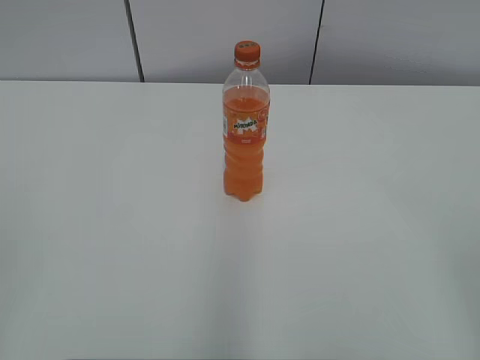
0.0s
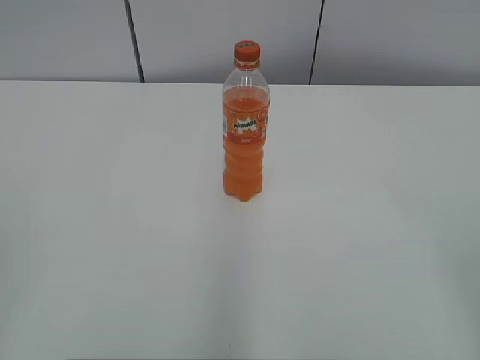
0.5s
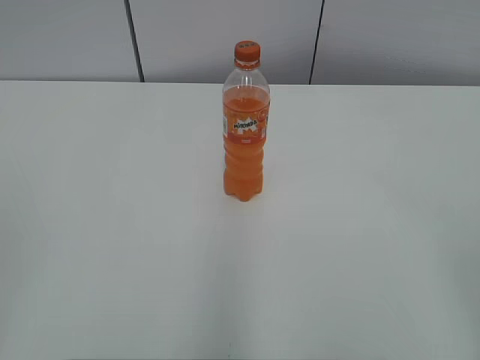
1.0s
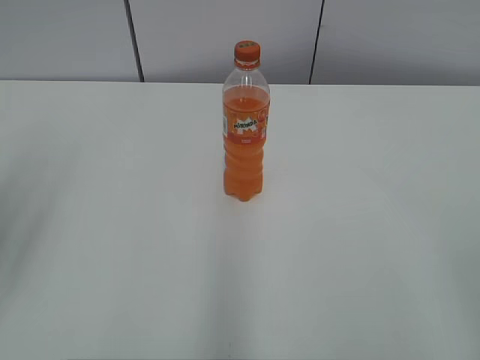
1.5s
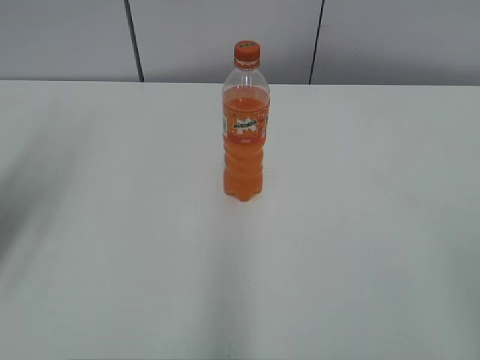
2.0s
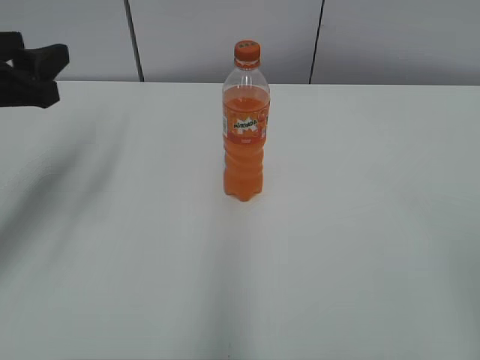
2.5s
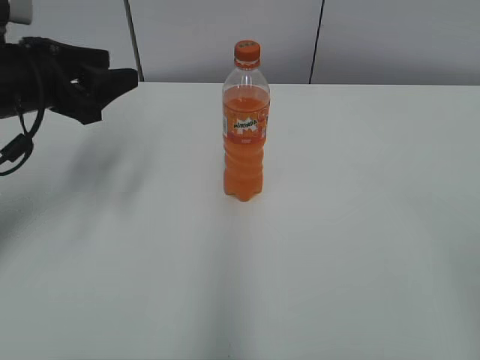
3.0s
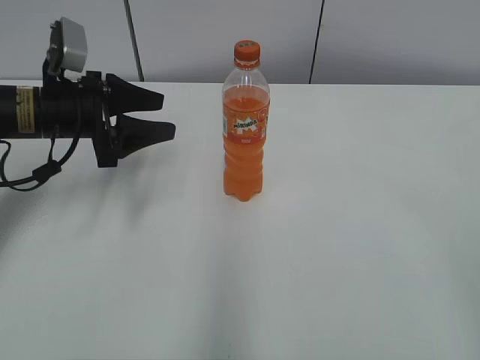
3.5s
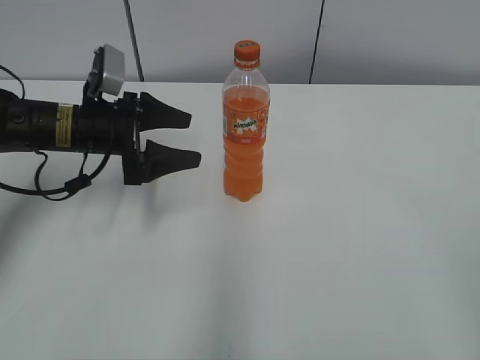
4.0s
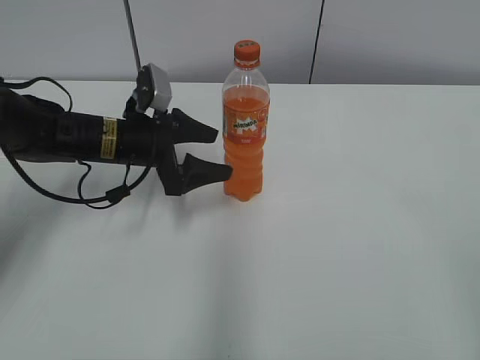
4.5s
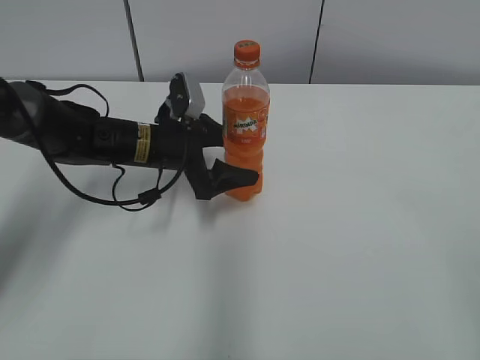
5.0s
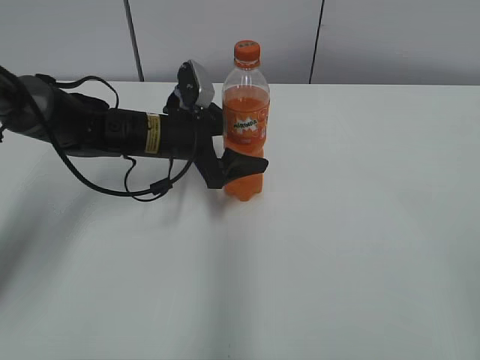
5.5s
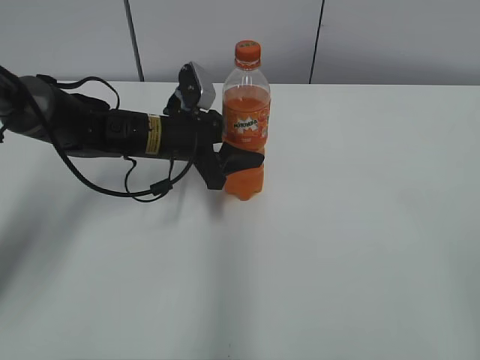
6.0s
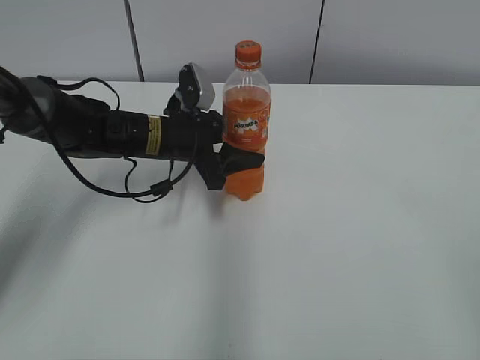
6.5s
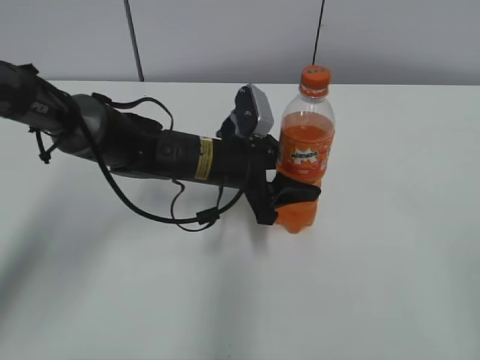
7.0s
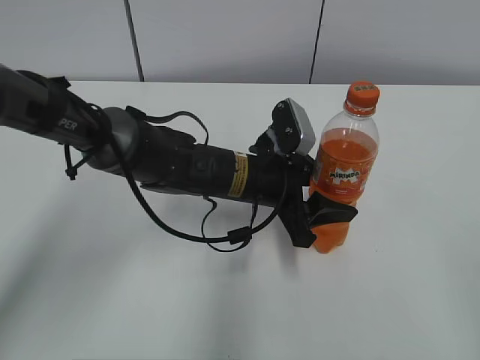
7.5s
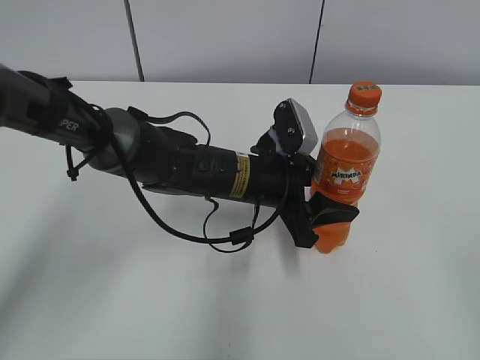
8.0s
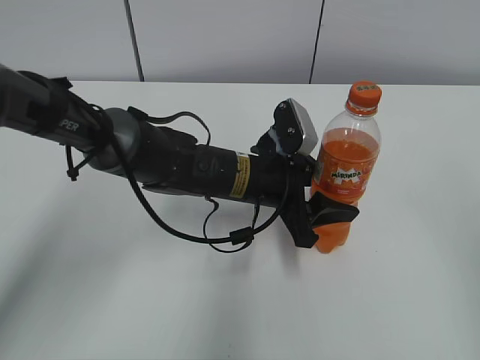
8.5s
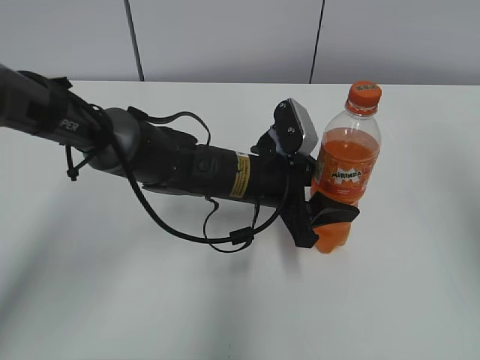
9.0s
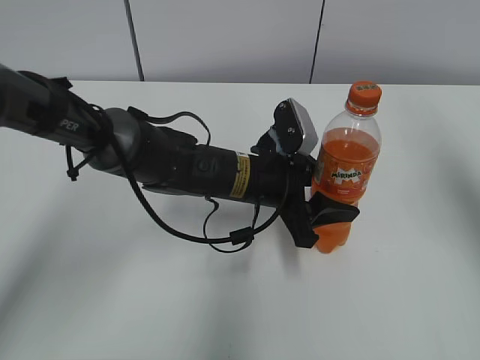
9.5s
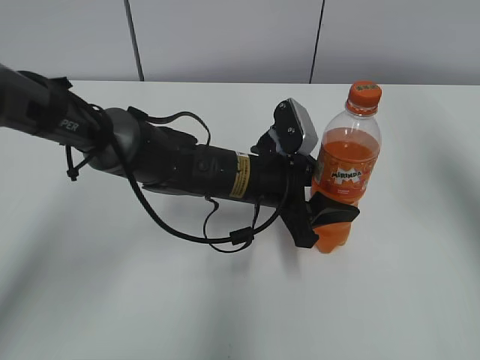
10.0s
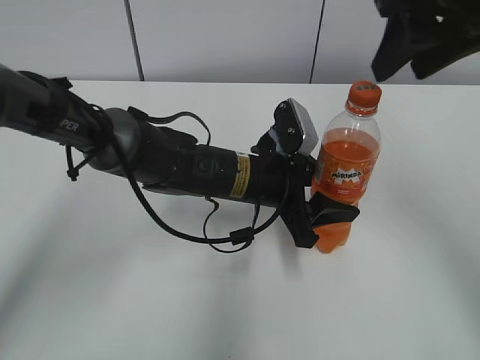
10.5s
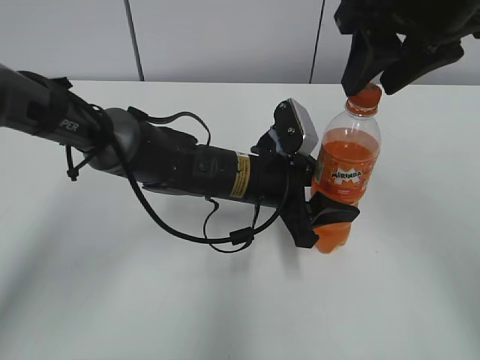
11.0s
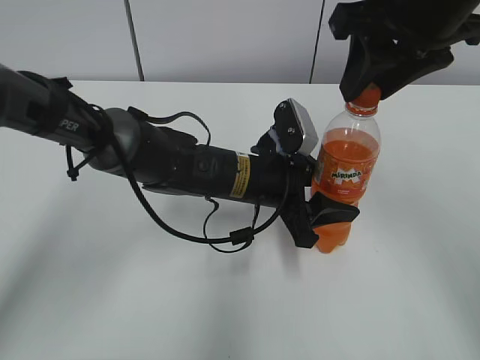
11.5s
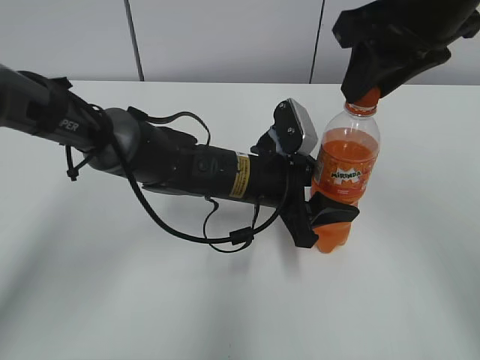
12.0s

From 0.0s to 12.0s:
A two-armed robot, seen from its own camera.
Step, from 0.0s to 6.0s: Grab the Mirinda with the left hand.
Step, from 6.5s to 7.0s: Move the Mirinda from left to right.
From 2.0s to 4.0s: The left gripper heads forward, downward and to the right, covering approximately 25 cm, and opens its fingers.
From 4.0s to 6.0s: The left gripper moves to the right, roughly 10 cm, and closes its fingers.
From 6.0s to 8.0s: The left gripper moves to the right and backward, about 15 cm.
From 8.0s to 10.0s: The right gripper travels forward by roughly 30 cm.
From 10.0s to 12.0s: The right gripper travels to the left by some 15 cm.

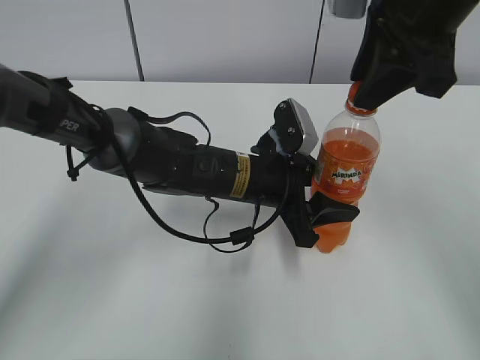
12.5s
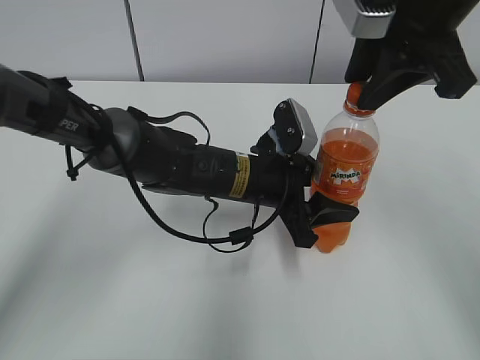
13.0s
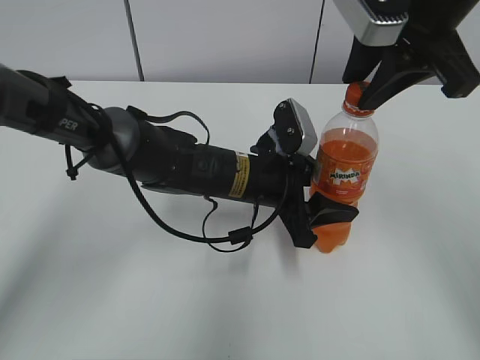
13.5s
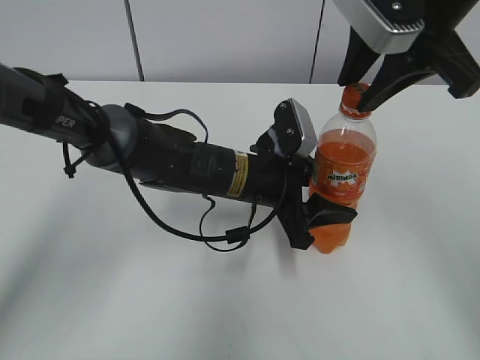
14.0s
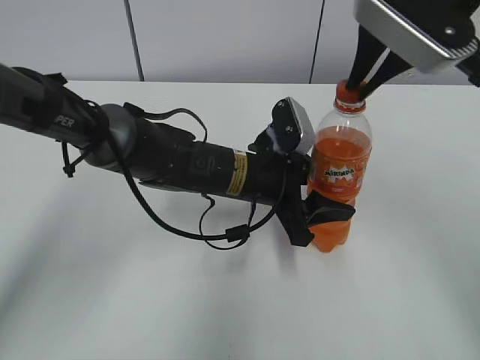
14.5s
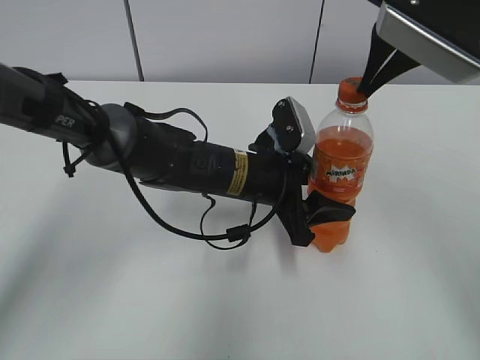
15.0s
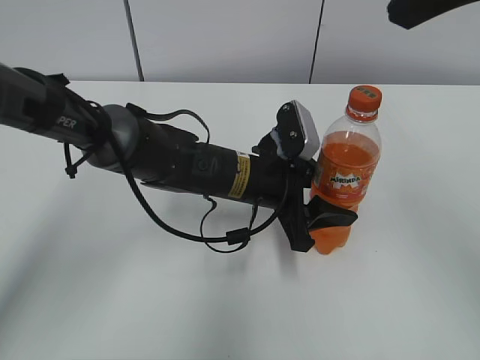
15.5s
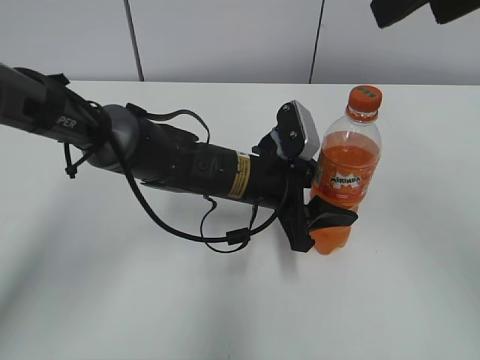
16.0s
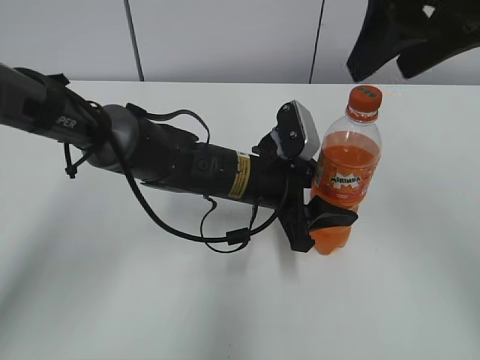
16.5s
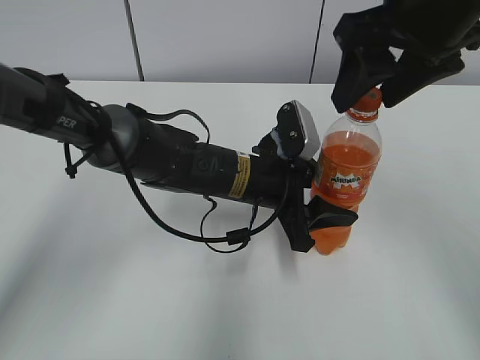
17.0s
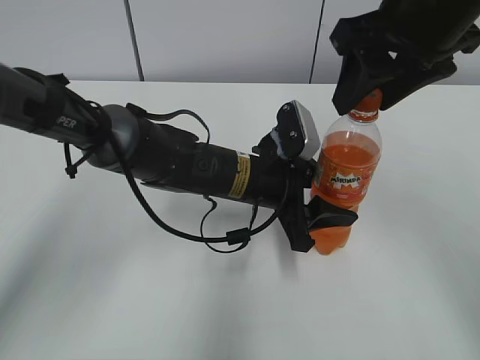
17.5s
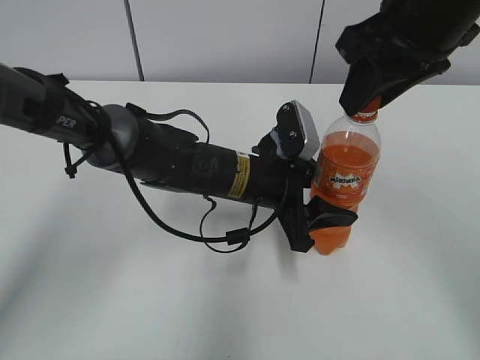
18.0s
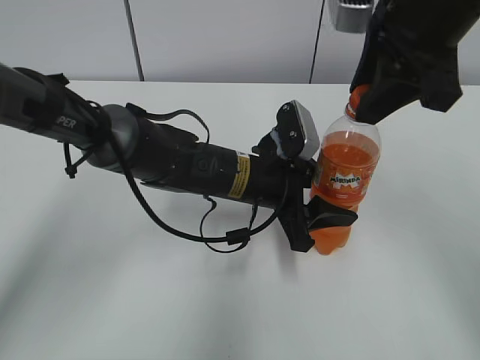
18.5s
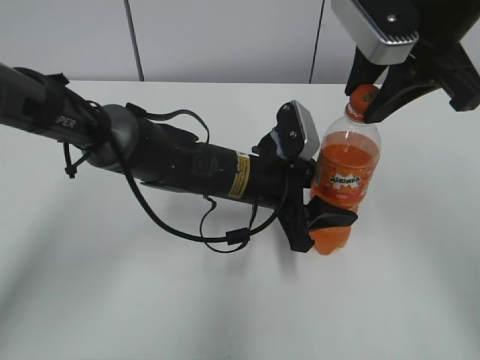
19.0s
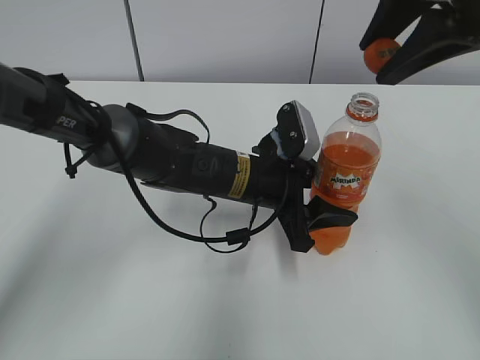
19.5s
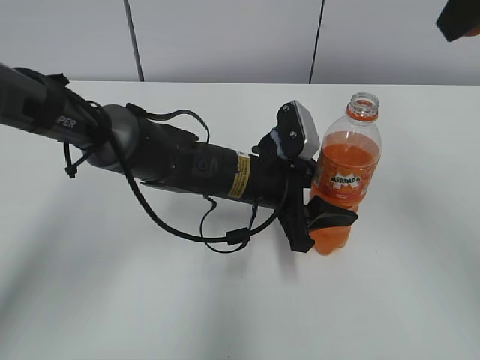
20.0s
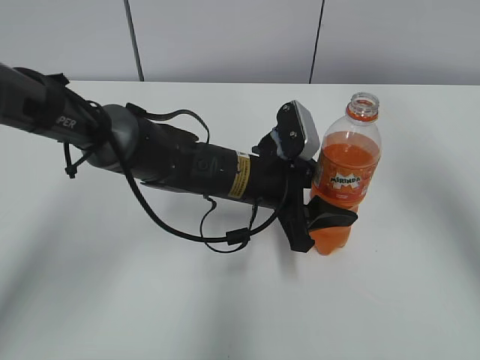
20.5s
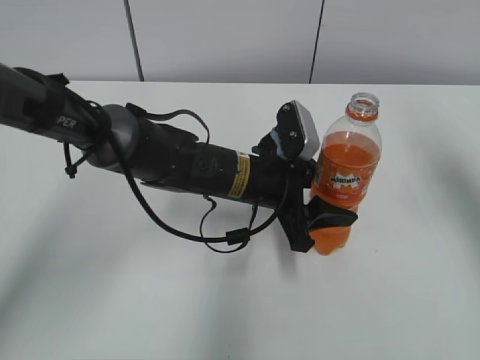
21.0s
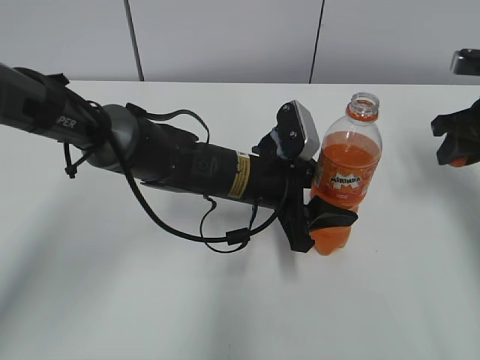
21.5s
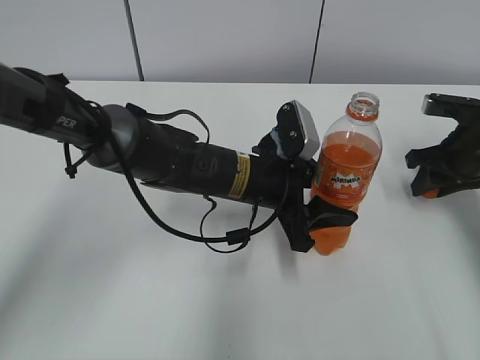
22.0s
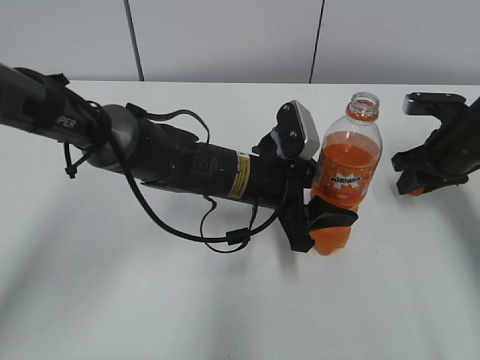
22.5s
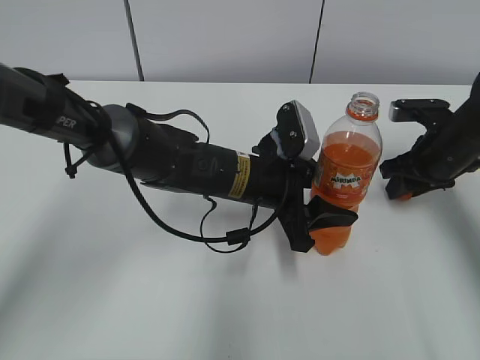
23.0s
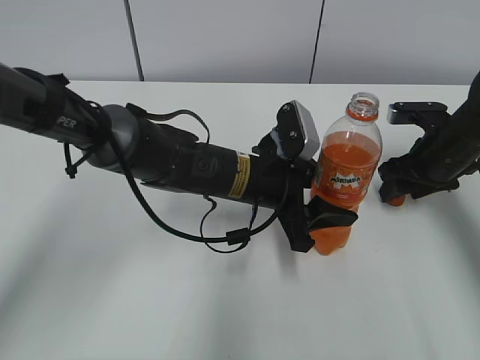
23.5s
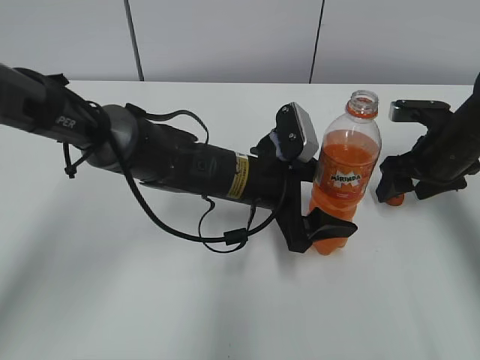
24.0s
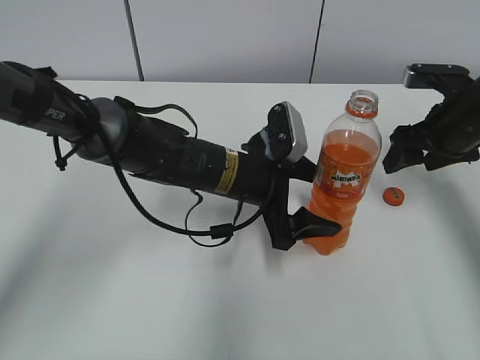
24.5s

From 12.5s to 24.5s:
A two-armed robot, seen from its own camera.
Step, from 19.5s to 23.5s: Place the bottle cap on the right.
From 14.5s to 16.5s: The right gripper opens.
From 16.5s to 18.5s: The right gripper ends up roughly 5 cm from where it was, and closes up.
From 18.5s to 20.5s: The right gripper heads to the right and upward, covering about 10 cm.
From 20.5s to 22.5s: The right gripper shifts approximately 25 cm downward.
From 22.5s to 24.5s: The left gripper opens up. Meanwhile the right gripper opens its fingers.

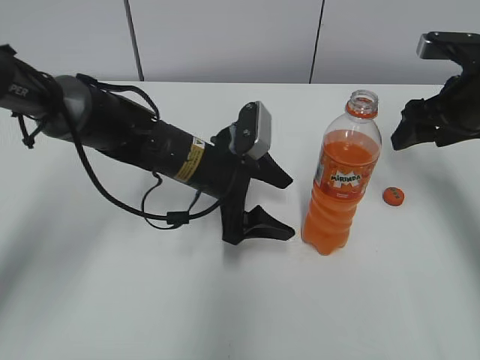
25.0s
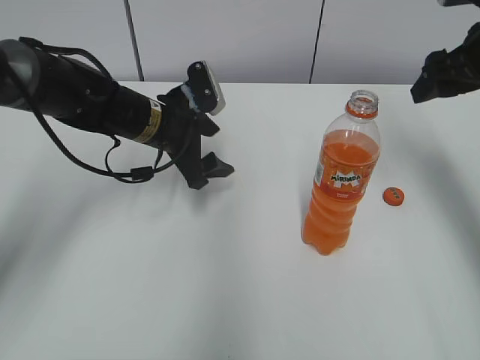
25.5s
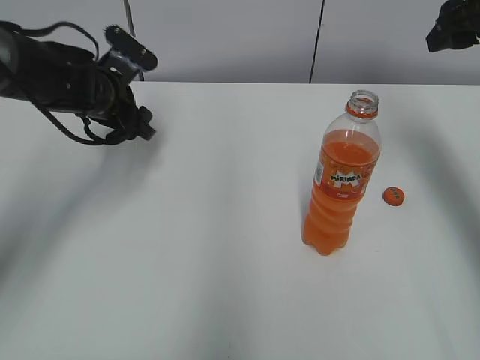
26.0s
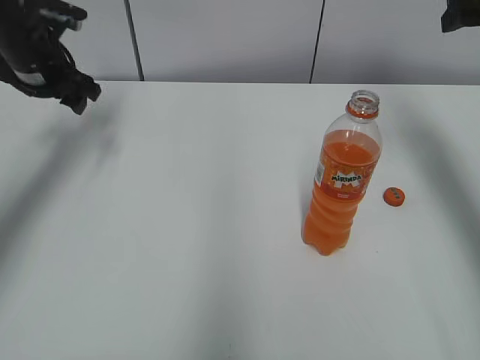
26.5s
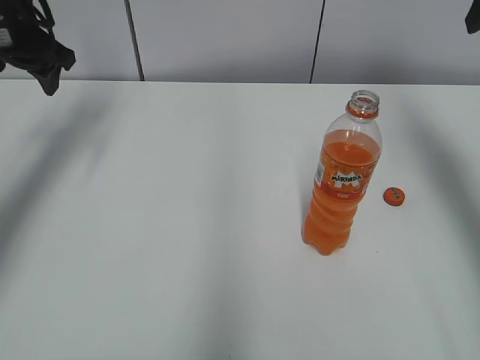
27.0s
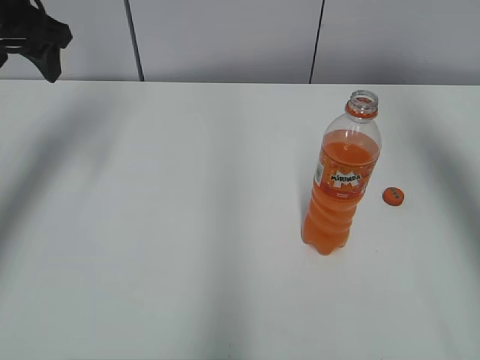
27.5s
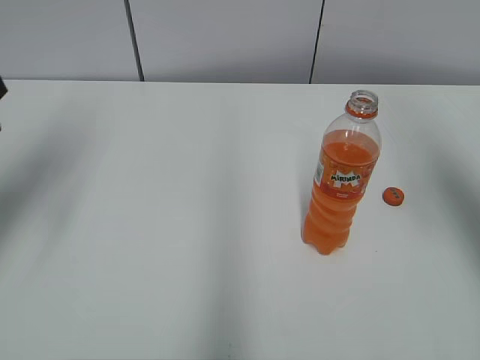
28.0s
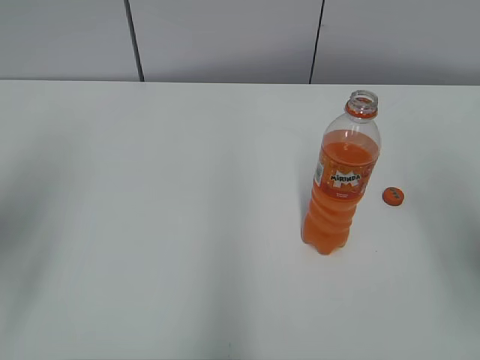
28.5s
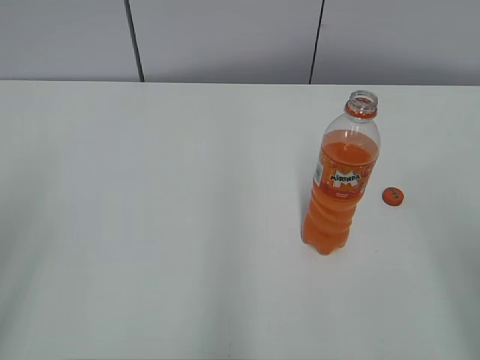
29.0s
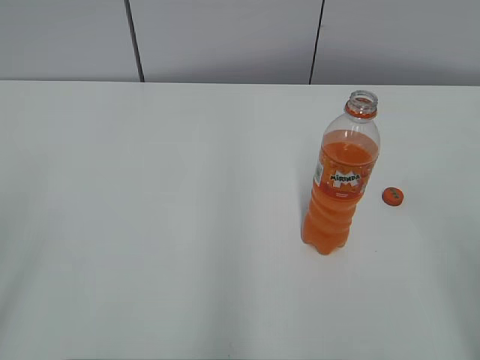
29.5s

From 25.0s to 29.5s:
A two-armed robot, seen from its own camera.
From 25.0s to 27.0s: The left gripper heads to the left, upward and forward, covering about 30 cm. Meanwhile the right gripper moves upward, about 15 cm.
From 27.0s to 29.5s: The two grippers go about 35 cm backward.
